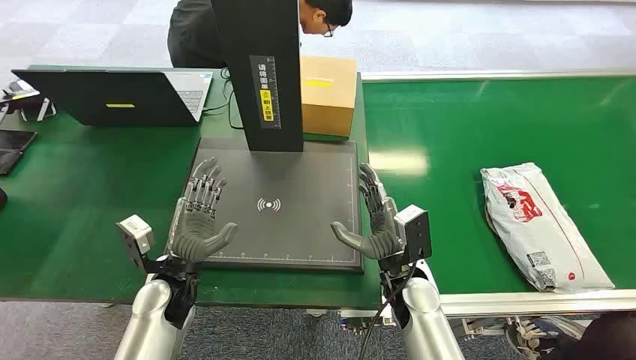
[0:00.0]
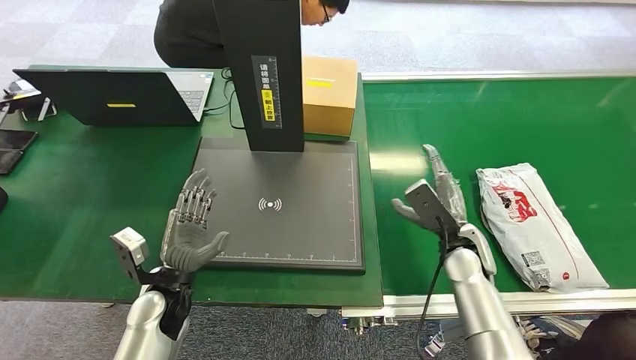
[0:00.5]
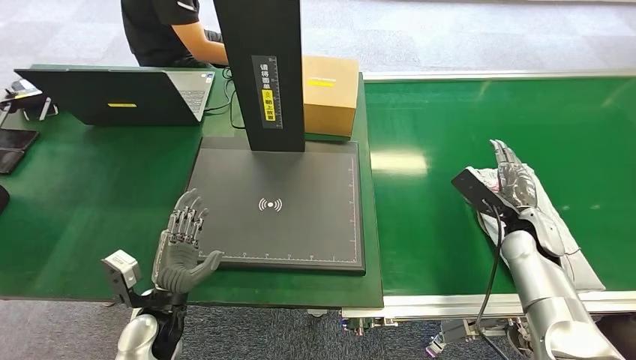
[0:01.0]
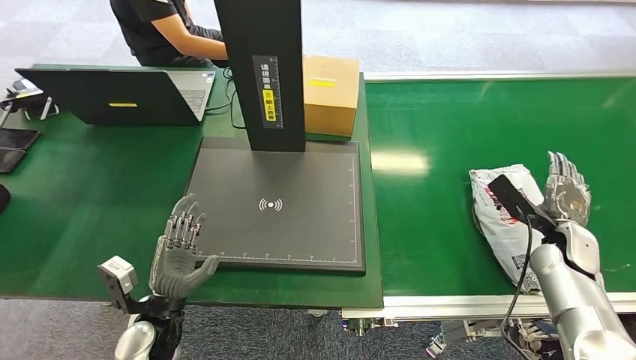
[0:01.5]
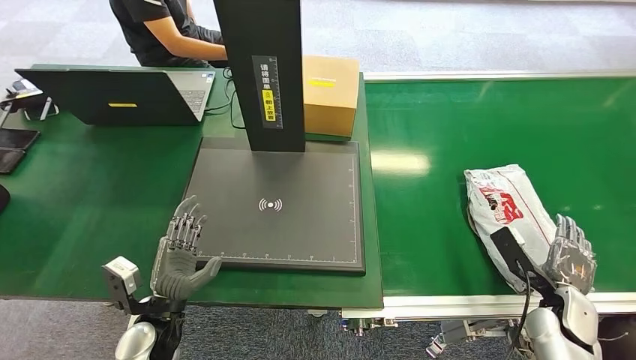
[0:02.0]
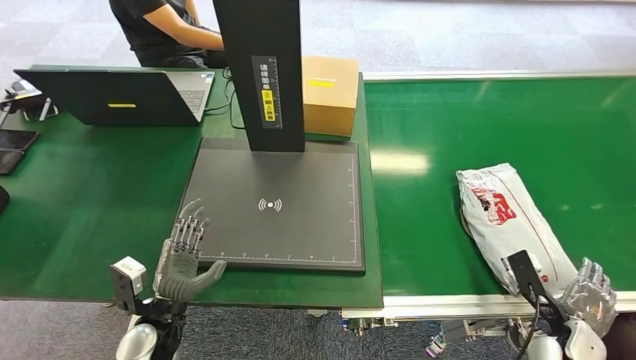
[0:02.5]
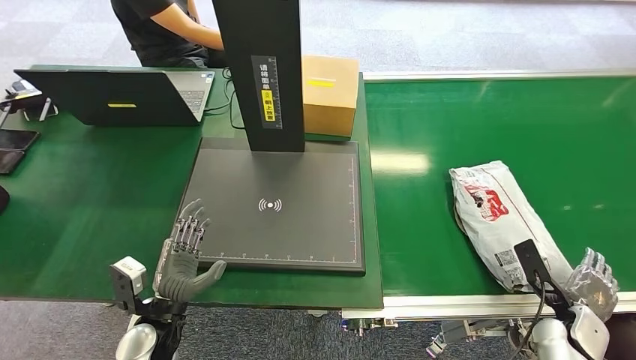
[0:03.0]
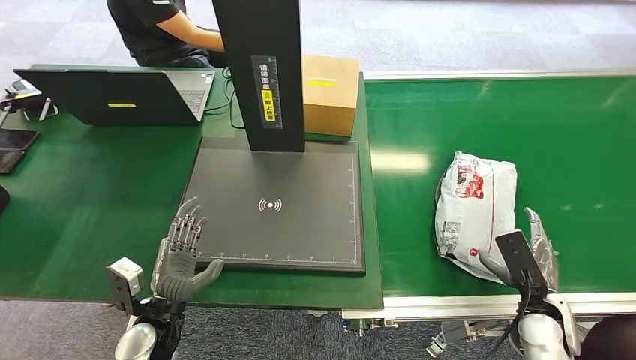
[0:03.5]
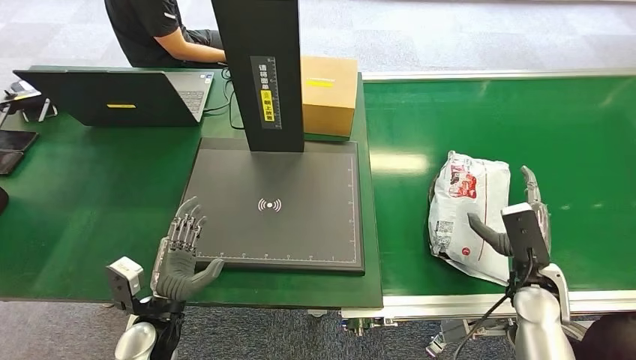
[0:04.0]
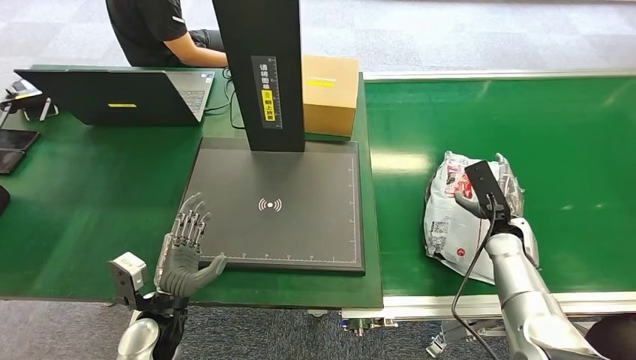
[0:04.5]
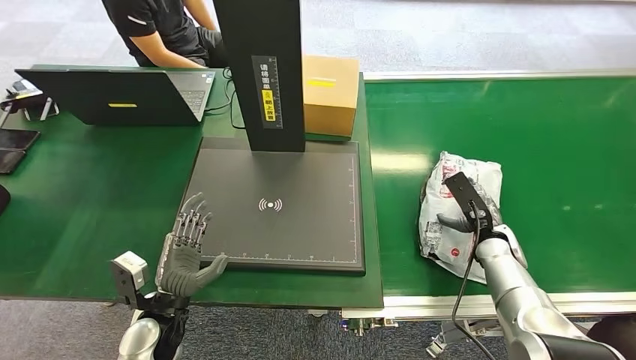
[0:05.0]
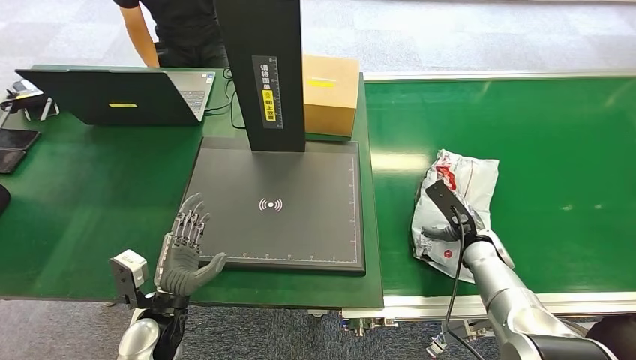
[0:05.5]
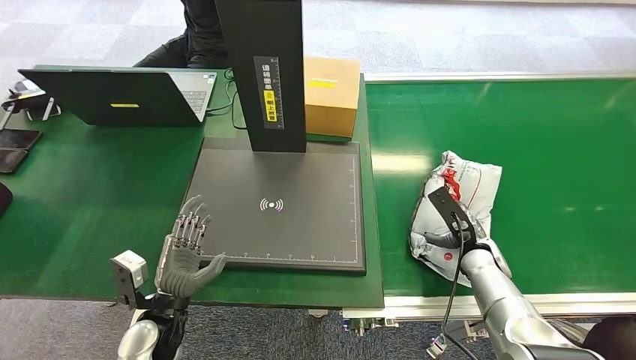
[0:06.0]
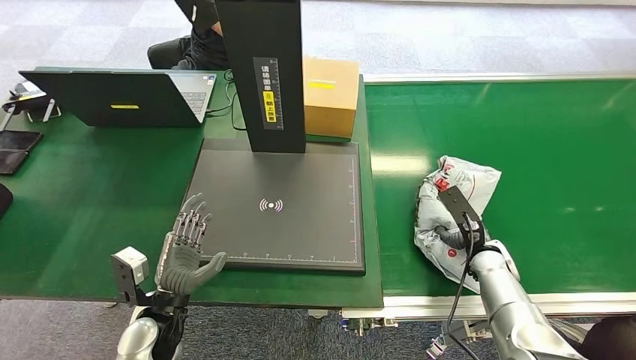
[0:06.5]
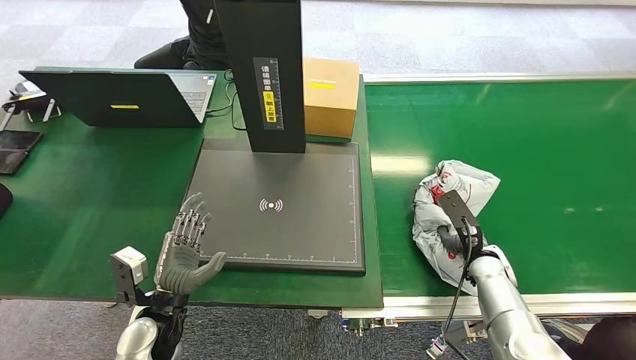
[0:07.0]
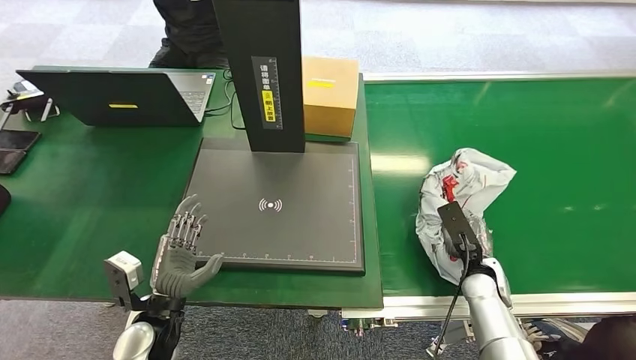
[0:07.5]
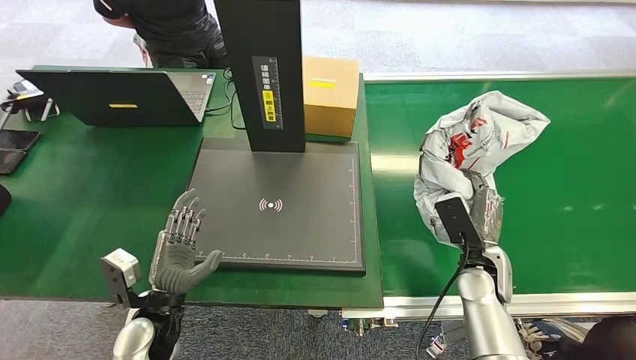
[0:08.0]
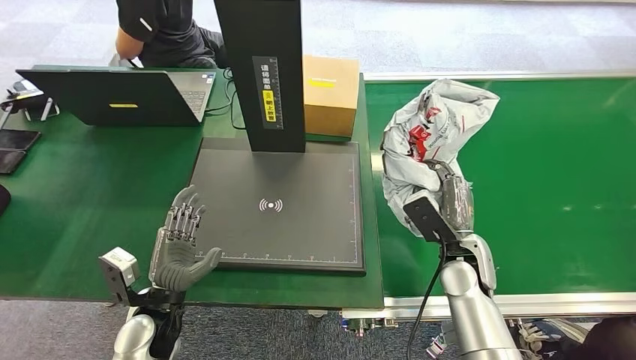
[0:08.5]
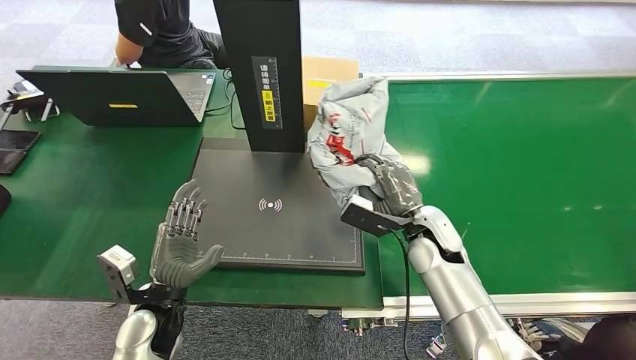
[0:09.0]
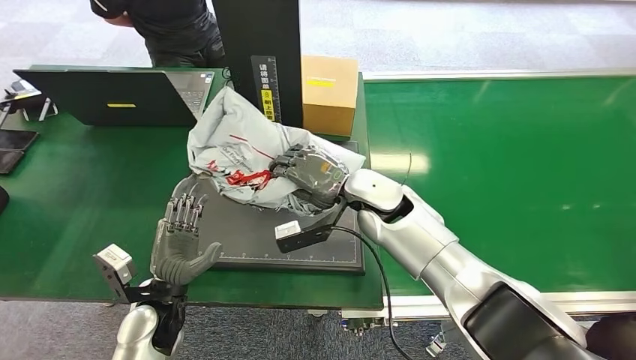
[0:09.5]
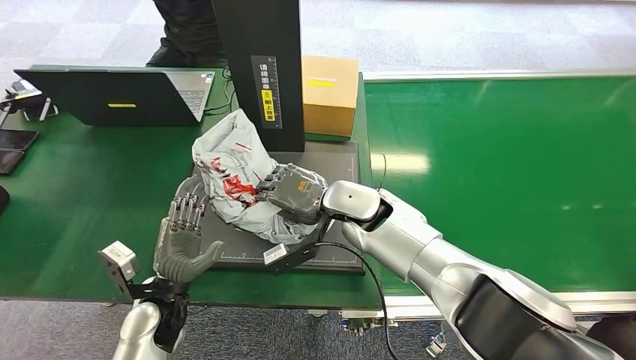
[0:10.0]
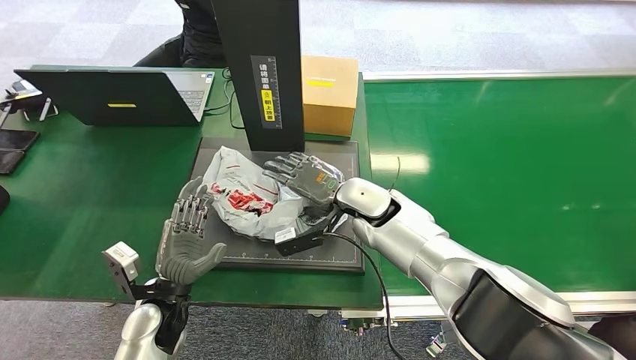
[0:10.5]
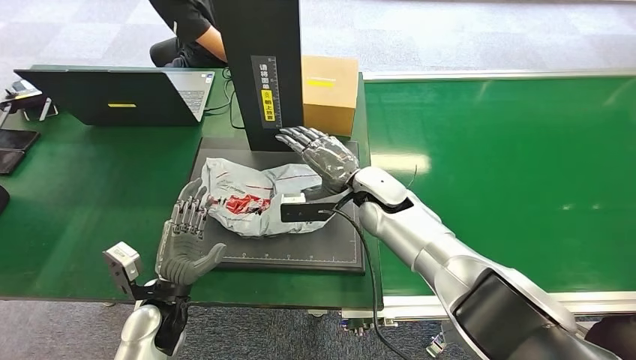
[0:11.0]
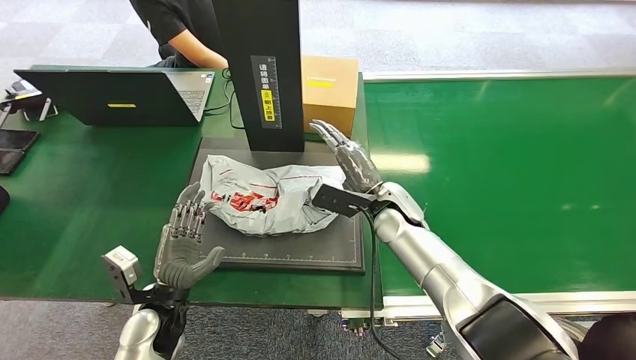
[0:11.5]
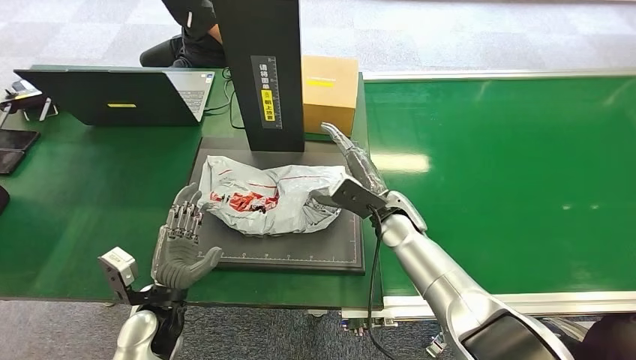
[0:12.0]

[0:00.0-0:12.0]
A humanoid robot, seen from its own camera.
Step, 0:00.0 to 0:08.0: Pick up the package from the conveyor belt.
0:02.0 to 0:04.0: The right hand travels to the left and upward by about 10 cm.
0:04.0 to 0:06.0: The right hand goes about 10 cm forward and downward.
0:06.0 to 0:08.0: The right hand heads upward, covering about 5 cm.
0:10.0 to 0:12.0: The right hand goes approximately 10 cm to the right and downward.

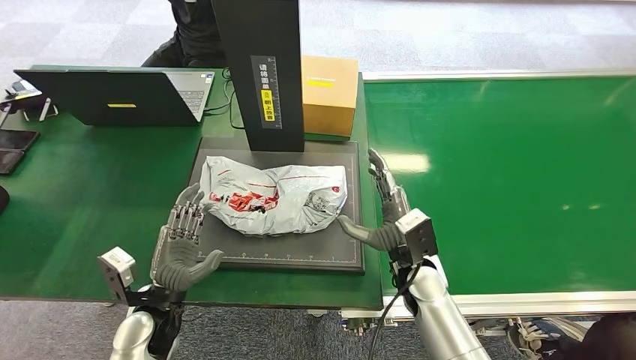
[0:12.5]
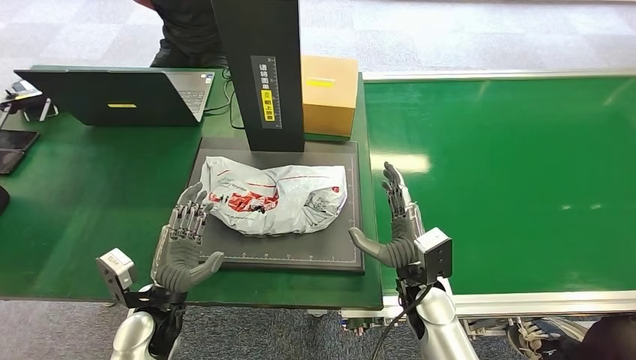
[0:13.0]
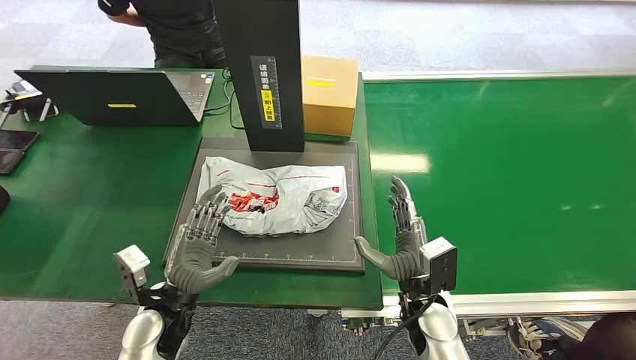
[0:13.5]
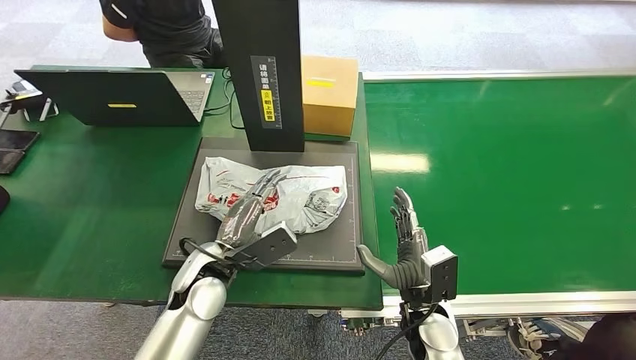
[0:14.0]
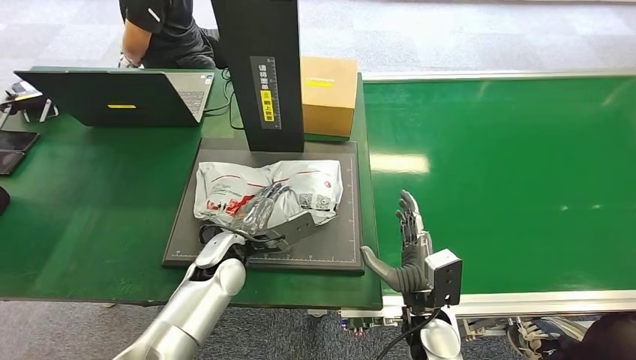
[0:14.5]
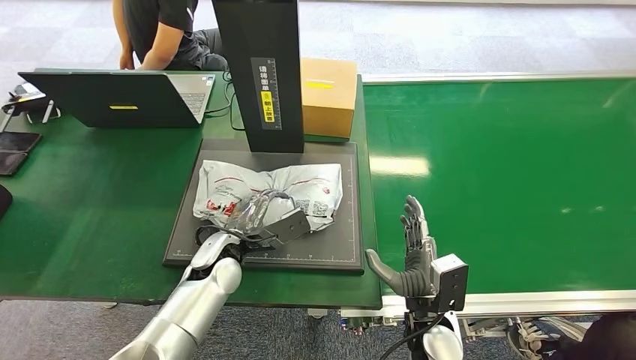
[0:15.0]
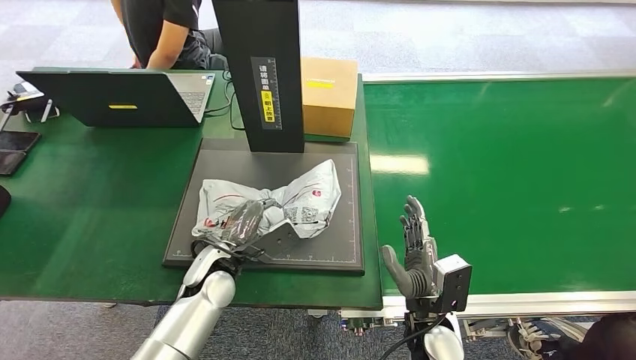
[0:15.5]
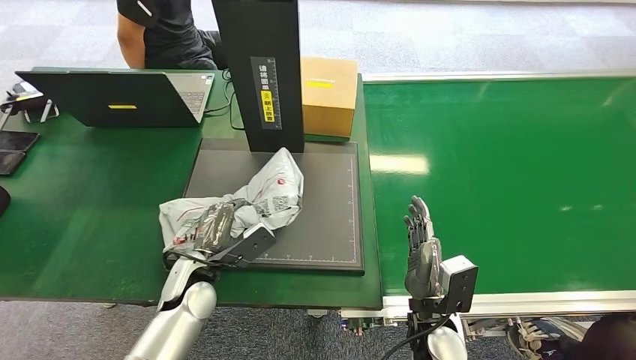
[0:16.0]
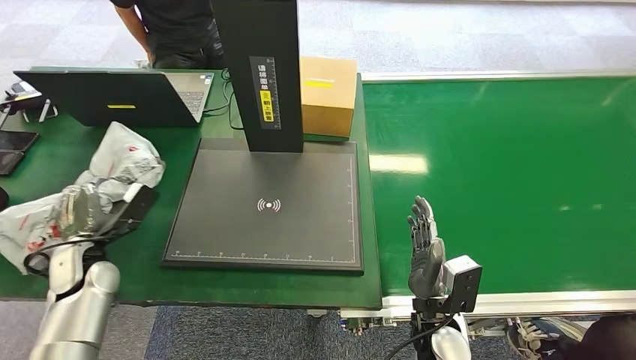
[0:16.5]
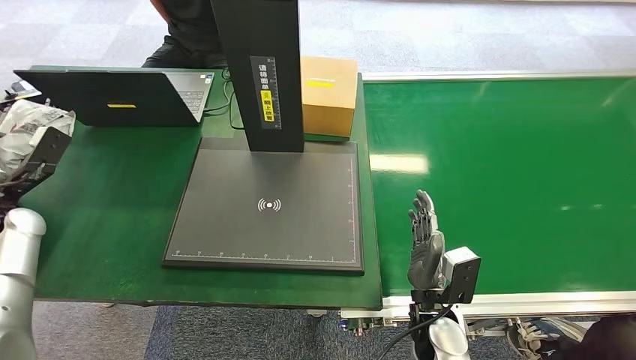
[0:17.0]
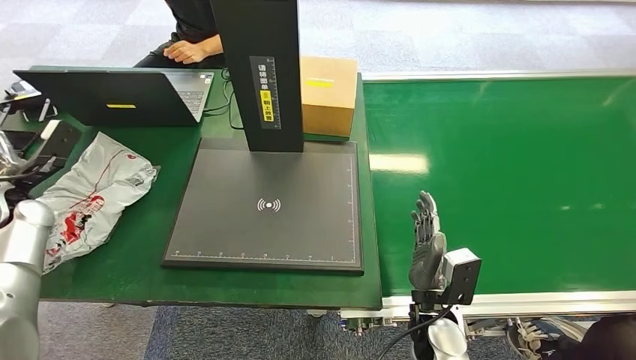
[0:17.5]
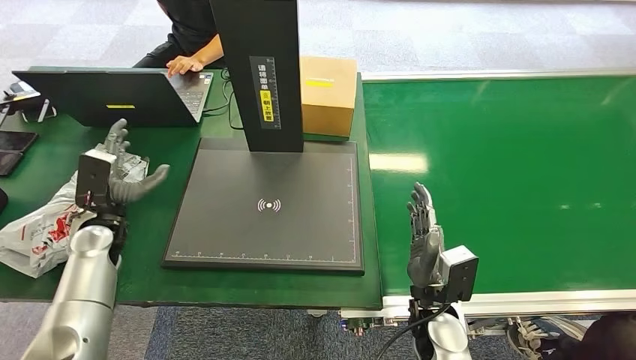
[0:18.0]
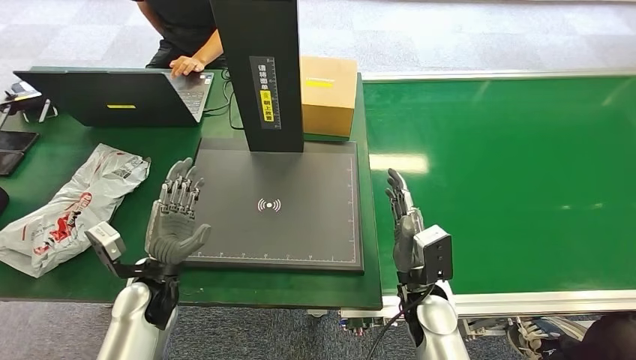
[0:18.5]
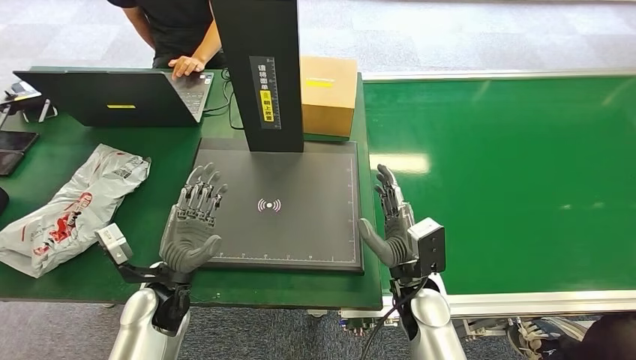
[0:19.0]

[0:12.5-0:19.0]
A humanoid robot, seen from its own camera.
Step, 0:13.0 to 0:16.5: Pick up the package from the inbound machine.
Step, 0:17.0 to 0:19.0: Place the package into the parcel locker.
0:12.5 to 0:14.5: The right hand shifts about 10 cm backward; the left hand travels to the right and forward by about 15 cm.
0:14.5 to 0:17.0: The left hand travels to the left by roughly 35 cm.
0:17.0 to 0:19.0: The right hand shifts by roughly 5 cm. Meanwhile the left hand shifts roughly 30 cm to the right.
